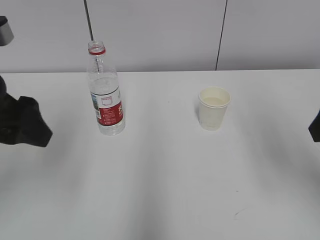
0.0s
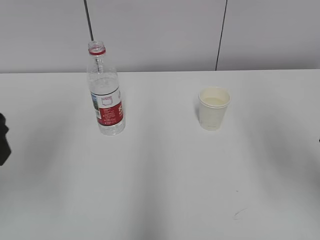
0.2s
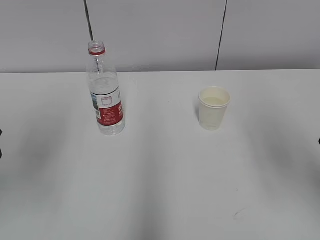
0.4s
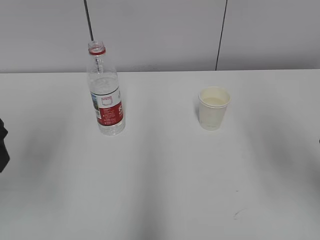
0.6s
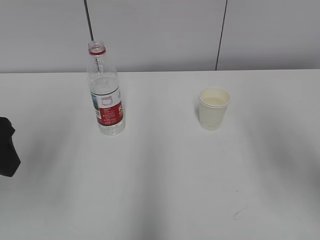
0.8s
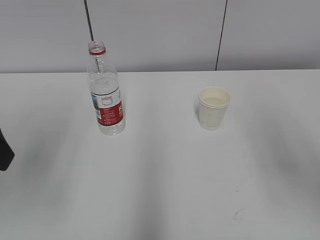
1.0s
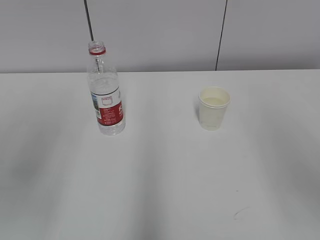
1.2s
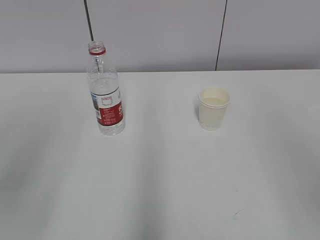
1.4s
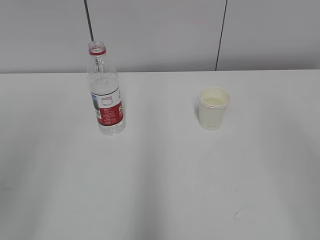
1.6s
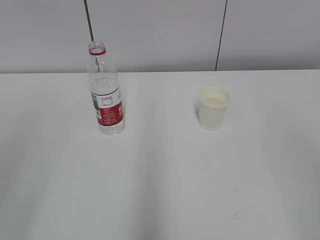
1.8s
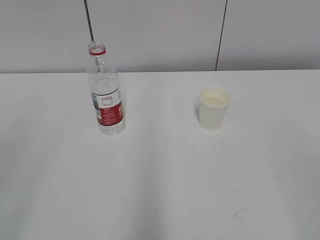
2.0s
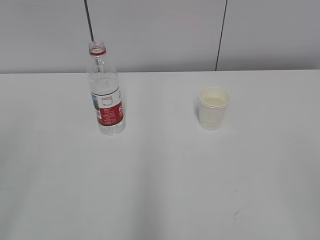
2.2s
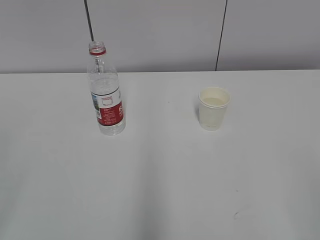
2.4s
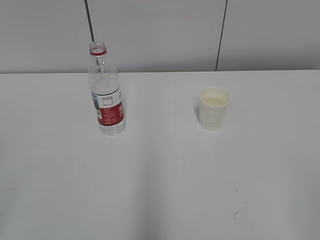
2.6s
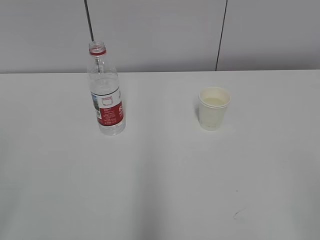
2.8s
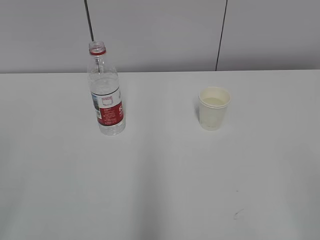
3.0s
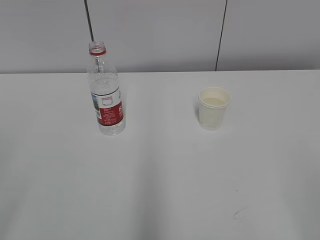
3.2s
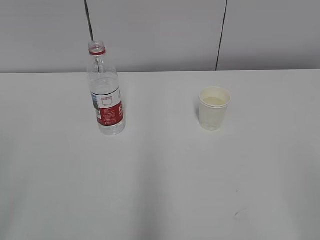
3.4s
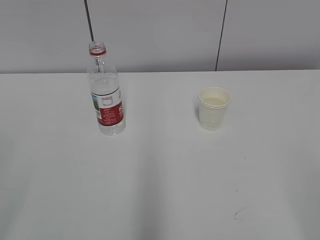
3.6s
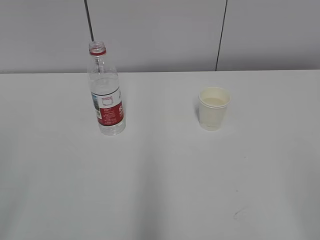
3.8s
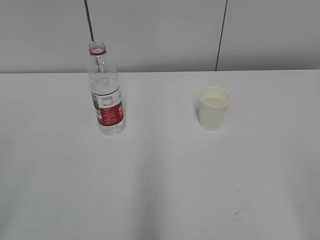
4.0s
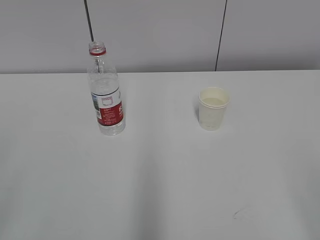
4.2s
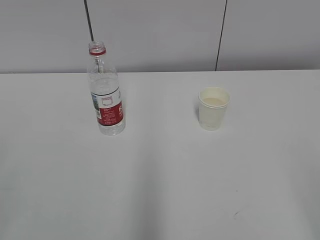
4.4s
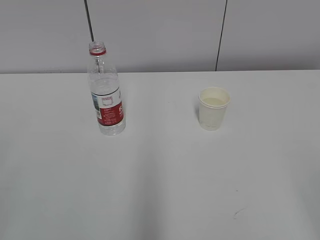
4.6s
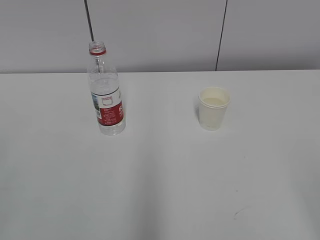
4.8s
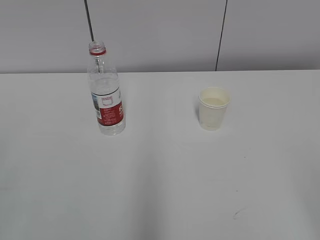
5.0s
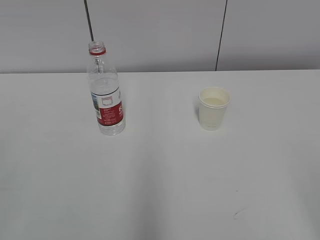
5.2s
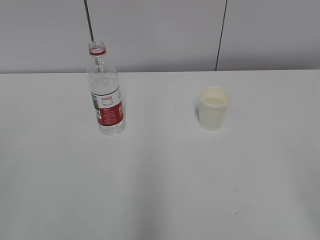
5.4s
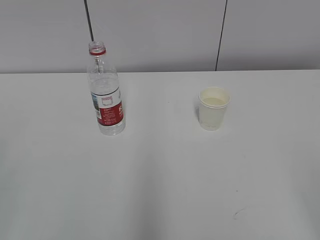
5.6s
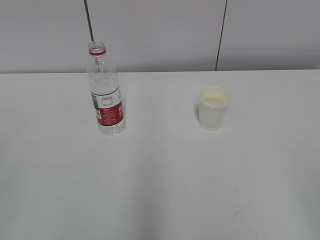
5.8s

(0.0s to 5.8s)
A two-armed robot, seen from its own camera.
0.0s - 1.4s: The left gripper shifts about 10 cm backward and upward.
4.4s - 5.8s: Neither gripper changes place.
